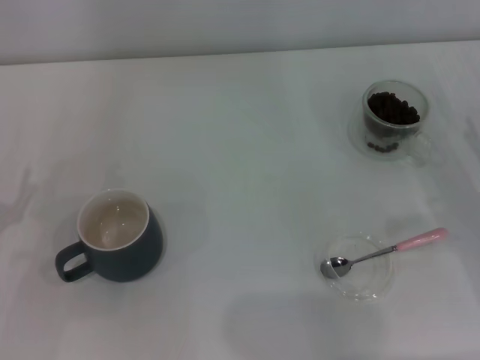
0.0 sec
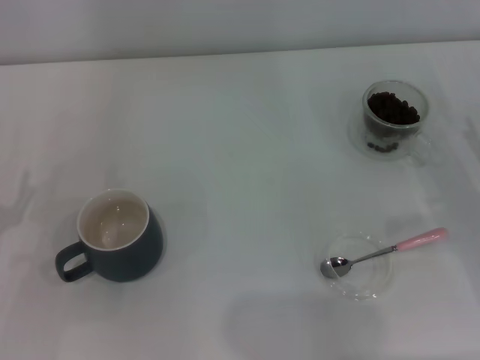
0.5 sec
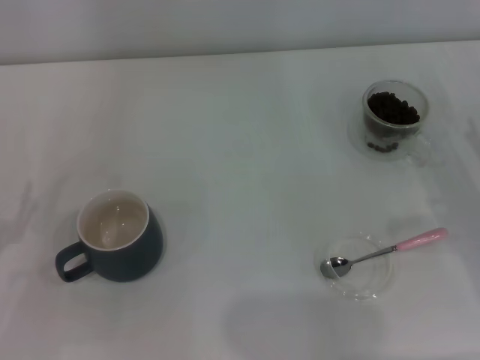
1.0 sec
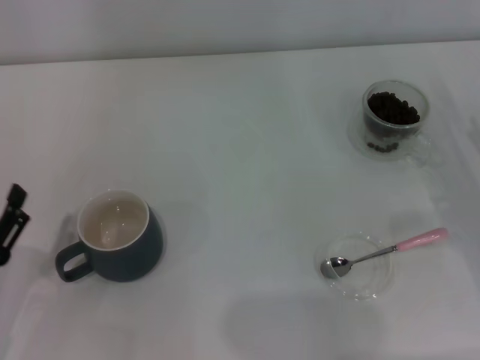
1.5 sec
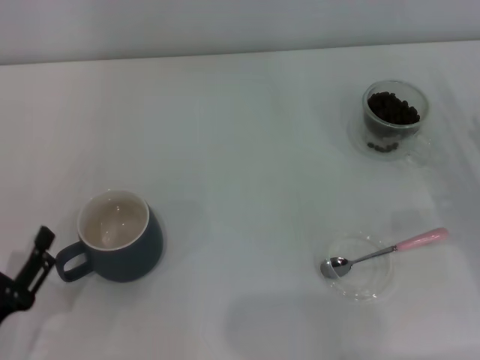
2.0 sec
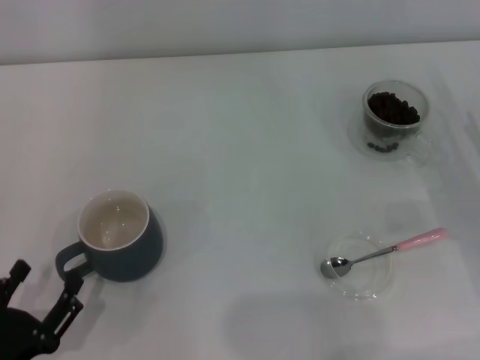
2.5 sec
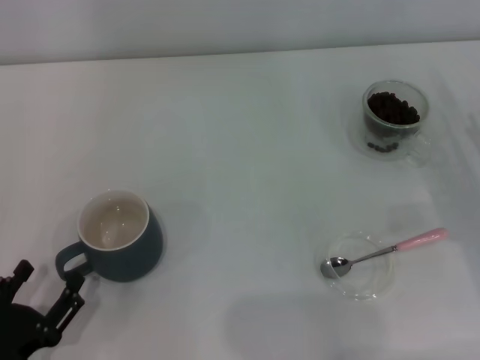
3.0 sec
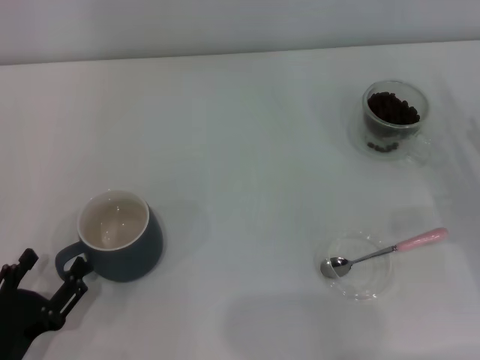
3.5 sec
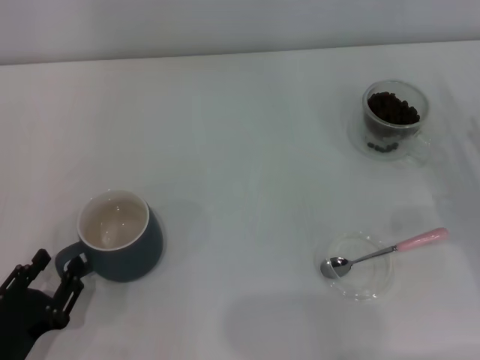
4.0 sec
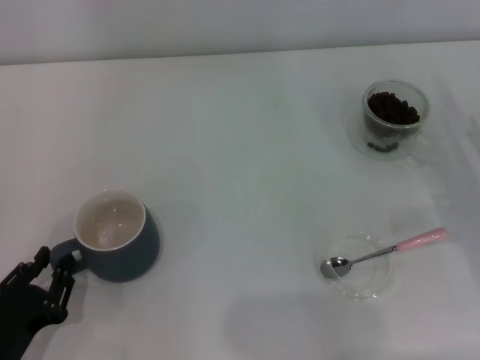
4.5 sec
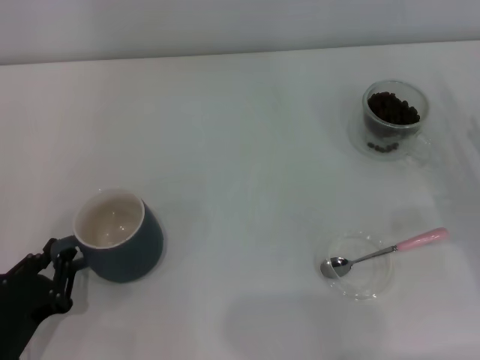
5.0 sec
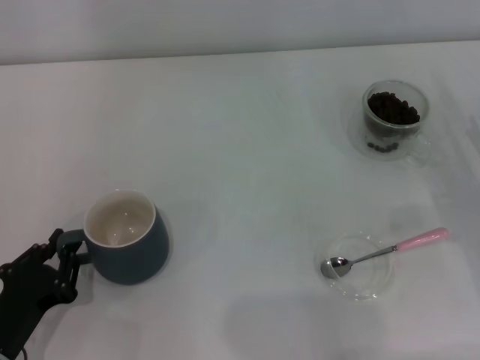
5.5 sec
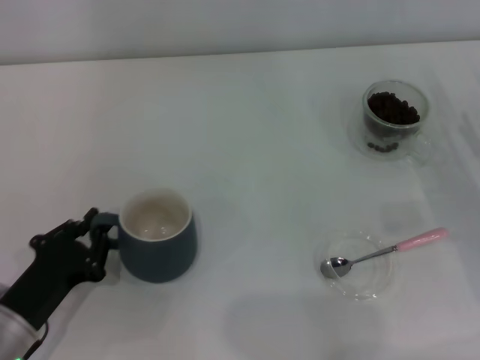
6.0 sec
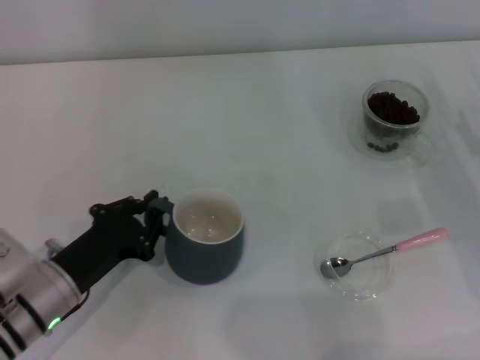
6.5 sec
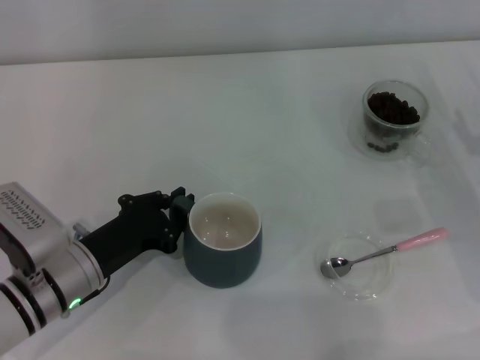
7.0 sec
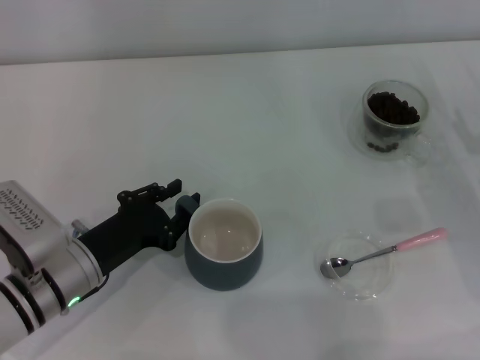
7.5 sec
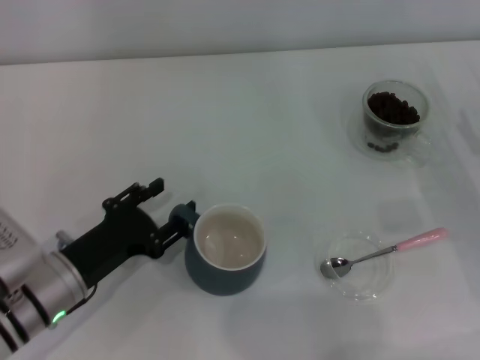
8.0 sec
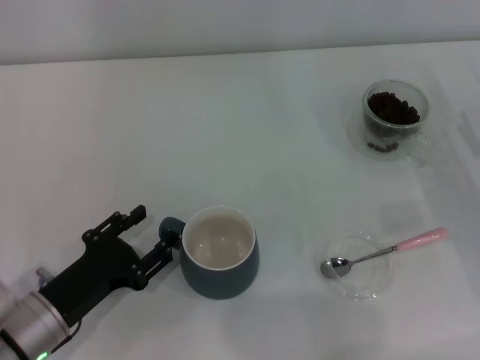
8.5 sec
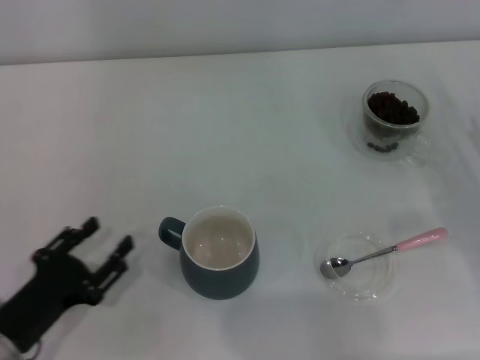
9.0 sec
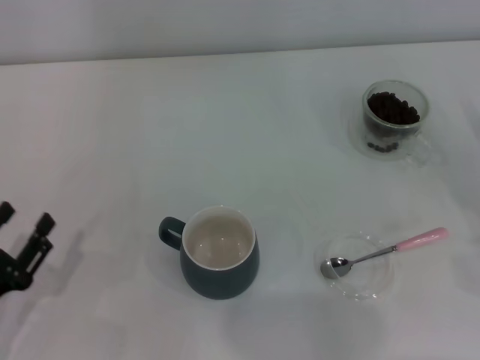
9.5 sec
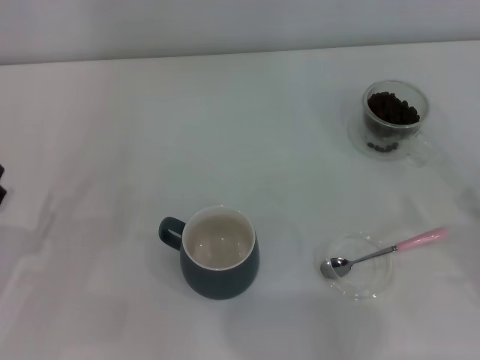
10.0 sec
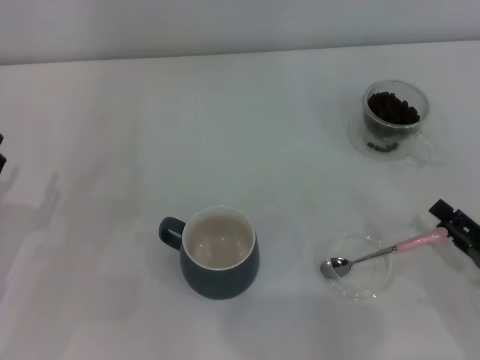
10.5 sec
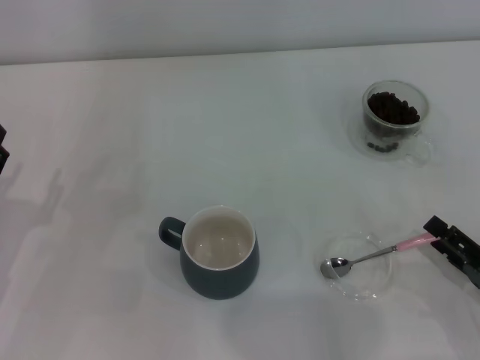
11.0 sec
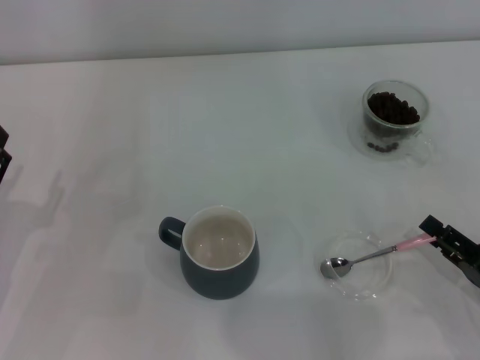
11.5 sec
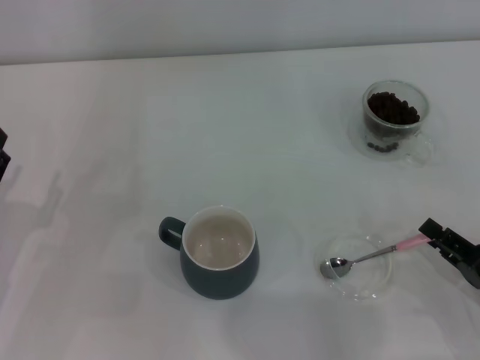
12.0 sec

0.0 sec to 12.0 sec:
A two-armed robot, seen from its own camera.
Task of the whole recording: Use a pink spoon to take out the coffee beans from the glass and pour them into the gray cup.
Step, 0.0 sec to 8.5 sec: Move the cup to the center of view with the left gripper.
0.0 sec to 2.0 sec: The left gripper goes approximately 10 cm backward.
2.0 sec to 4.0 sec: There are only small adjustments of the grippers.
4.0 sec to 6.0 sec: The left gripper moves forward, approximately 5 cm, and closes up.
6.0 sec to 8.0 sec: The left gripper goes roughly 5 cm forward, and opens its fingers.
8.0 sec to 10.0 sec: The left gripper heads to the left, covering roughly 10 cm; the right gripper goes approximately 10 cm backward.
10.0 sec to 12.0 sec: The right gripper shifts some 5 cm to the left, and closes its fingers.

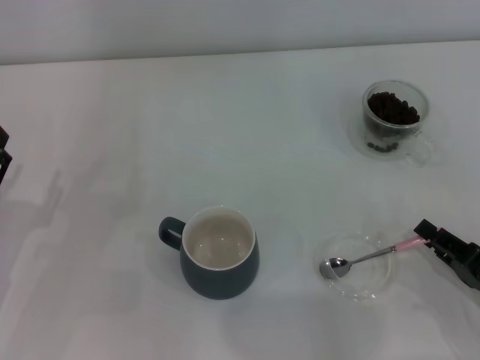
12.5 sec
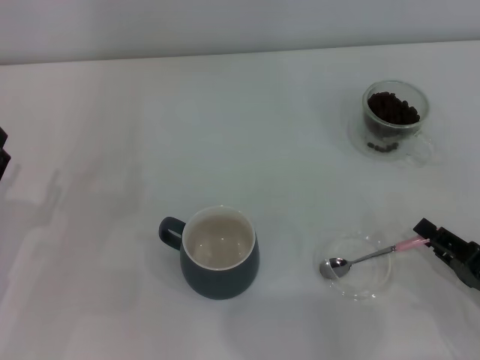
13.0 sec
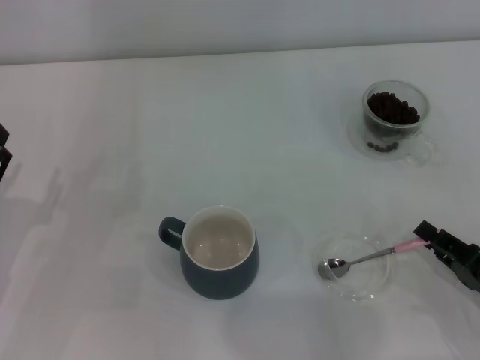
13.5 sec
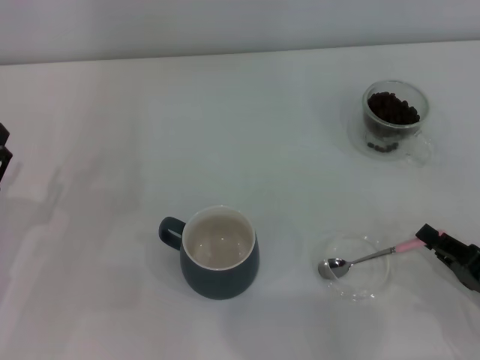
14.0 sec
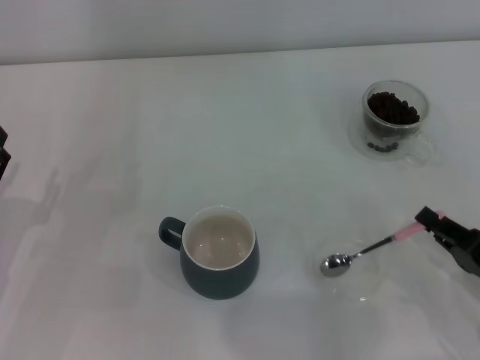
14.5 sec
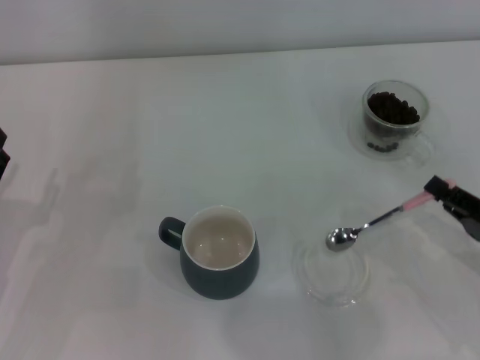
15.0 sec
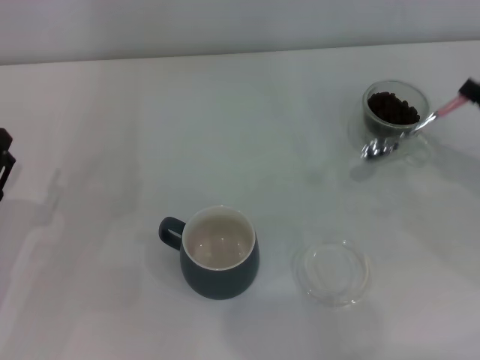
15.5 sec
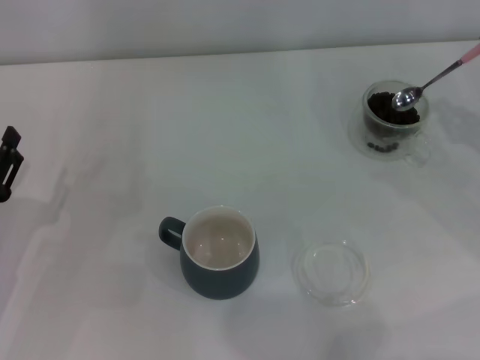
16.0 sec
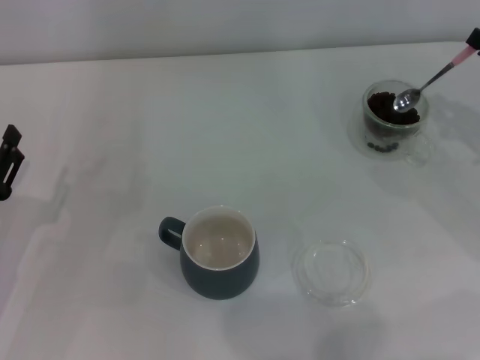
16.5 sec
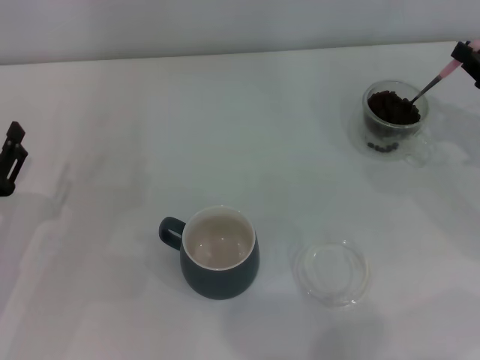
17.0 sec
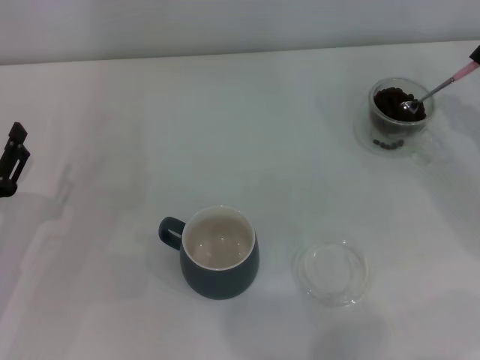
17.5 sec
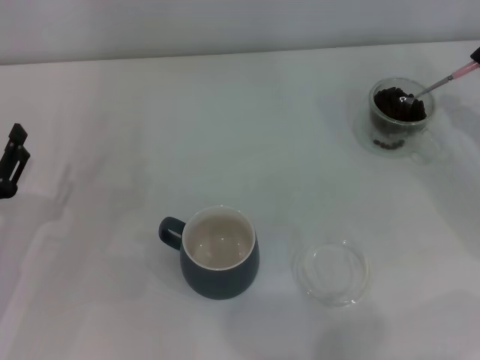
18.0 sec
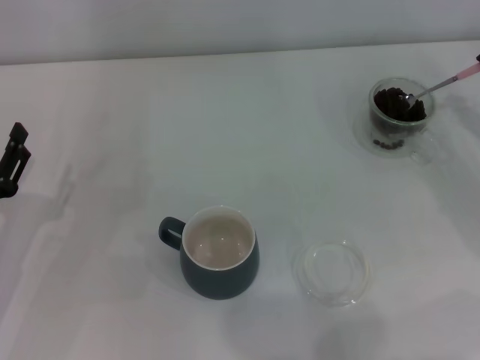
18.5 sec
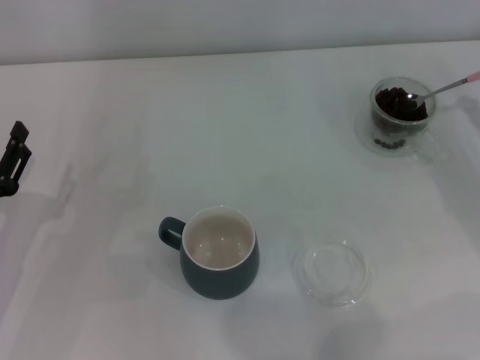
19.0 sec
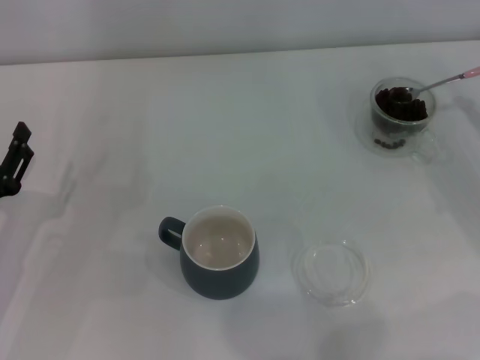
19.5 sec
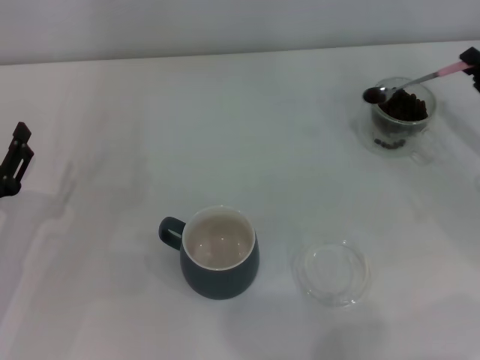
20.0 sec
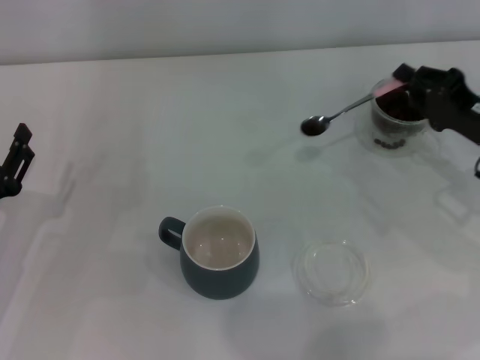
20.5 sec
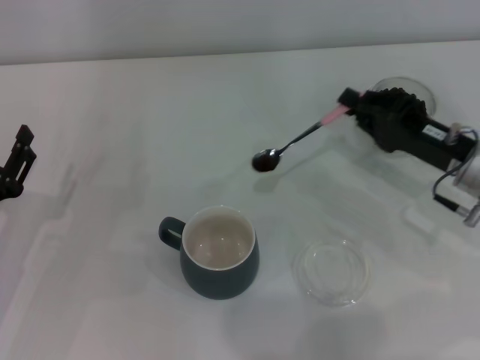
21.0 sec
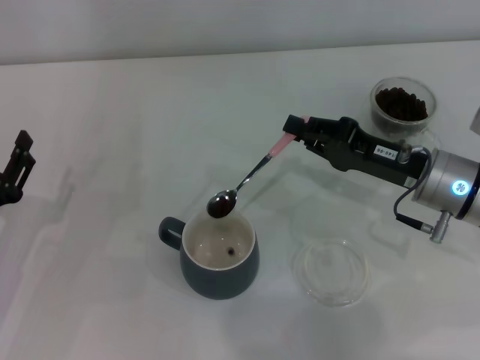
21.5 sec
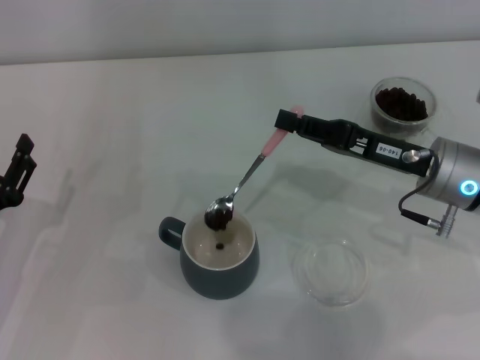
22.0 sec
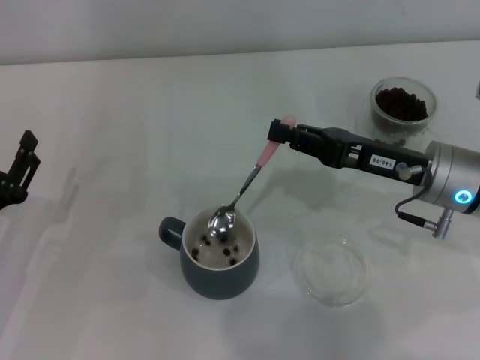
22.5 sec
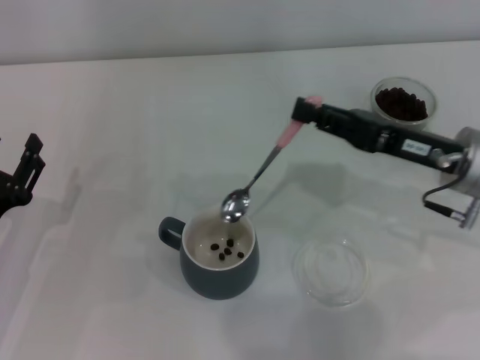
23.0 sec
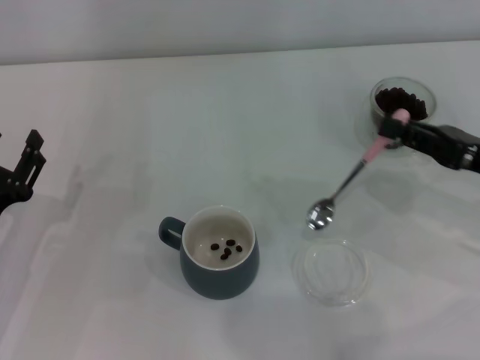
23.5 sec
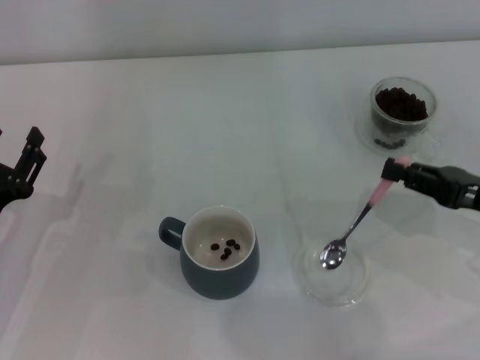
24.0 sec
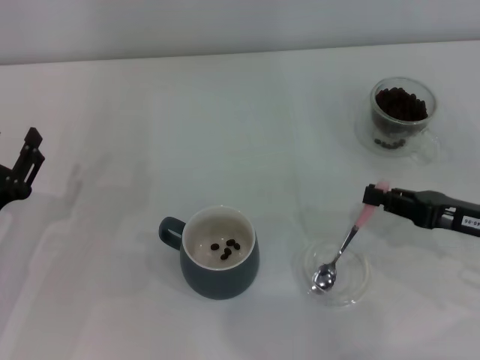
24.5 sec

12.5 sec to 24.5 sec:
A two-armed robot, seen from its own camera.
Task of the whole recording: Use a pink spoon to take out the coffee beans from the glass and pour them into the gray cup.
Step, 12.5 sec to 14.5 sec: Pick up the spoon with the right gripper.
Step, 15.0 sec to 22.5 sec: Scoop a spoonful of beans into the cup with the right gripper.
12.5 sec to 14.5 sec: Both grippers stay about where they are.
14.5 sec to 16.5 sec: The right gripper heads forward, upward and to the right, covering some 20 cm.
18.5 sec to 20.5 sec: The right gripper shifts roughly 5 cm to the left.
20.5 sec to 22.5 sec: The right gripper goes some 10 cm to the left.
22.5 sec to 24.5 sec: The right gripper goes roughly 10 cm to the right and backward.

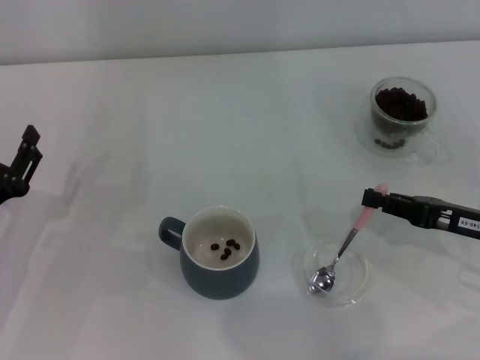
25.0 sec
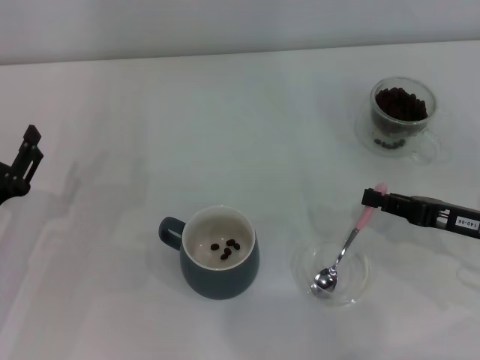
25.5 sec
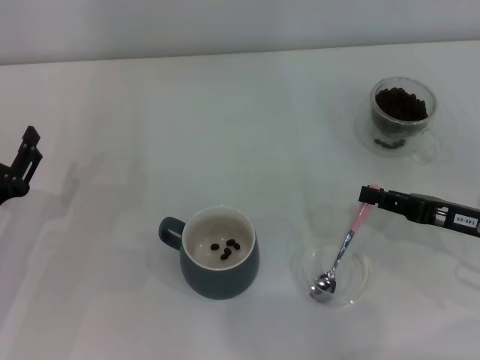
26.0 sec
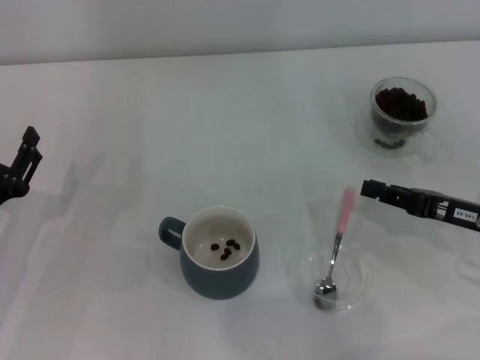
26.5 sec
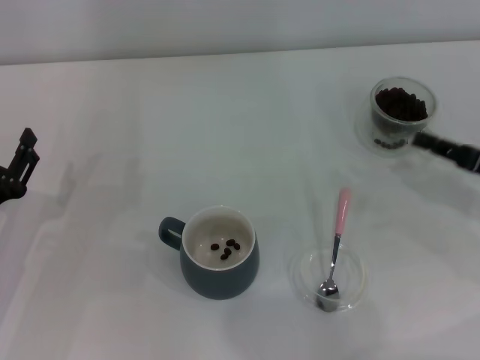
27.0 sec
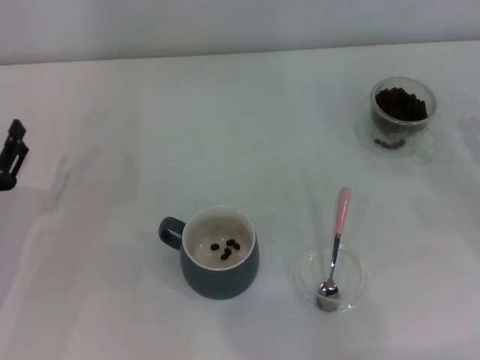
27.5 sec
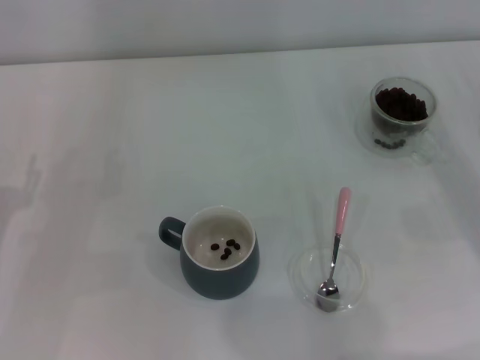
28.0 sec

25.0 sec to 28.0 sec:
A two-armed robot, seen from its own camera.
Task of the whole recording: Use a pink spoon to take out the coffee beans from the glass and pour them into the gray cup.
25.0 sec to 26.5 sec: Both grippers stay about where they are.
26.5 sec to 28.0 sec: The right gripper is displaced to the right by some 10 cm.
